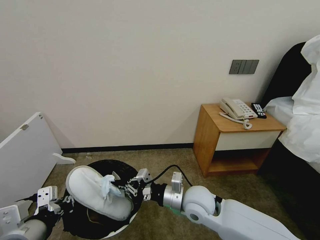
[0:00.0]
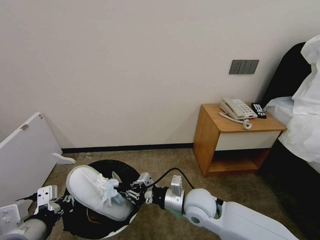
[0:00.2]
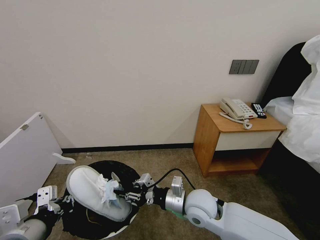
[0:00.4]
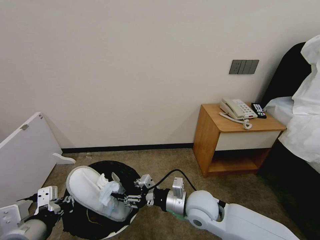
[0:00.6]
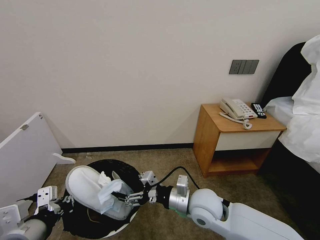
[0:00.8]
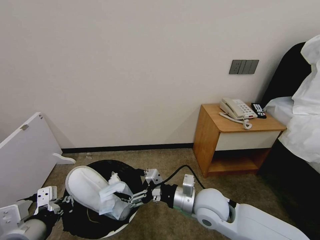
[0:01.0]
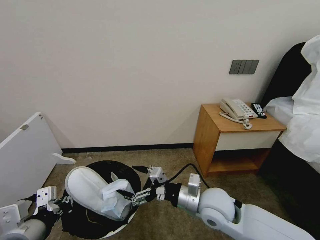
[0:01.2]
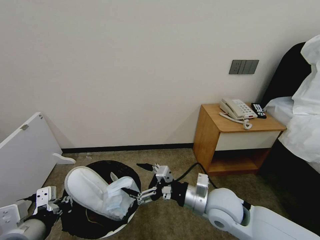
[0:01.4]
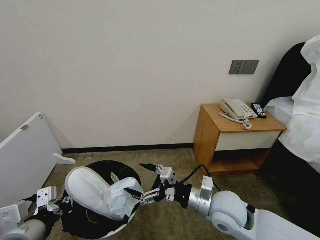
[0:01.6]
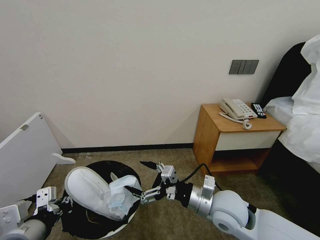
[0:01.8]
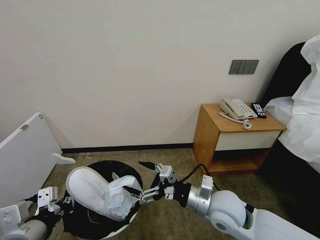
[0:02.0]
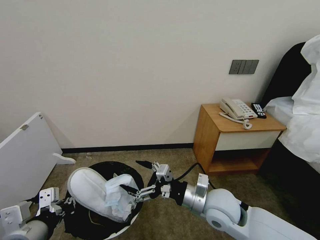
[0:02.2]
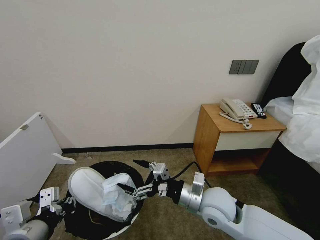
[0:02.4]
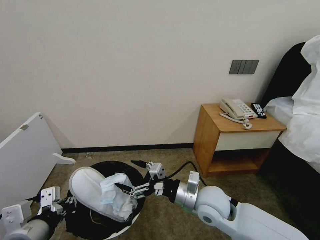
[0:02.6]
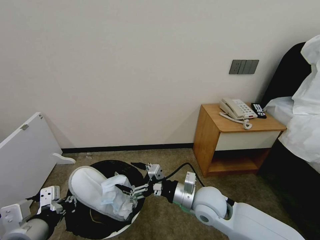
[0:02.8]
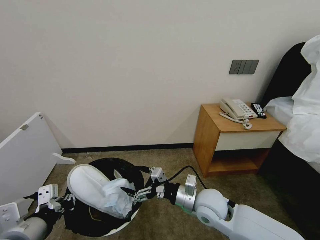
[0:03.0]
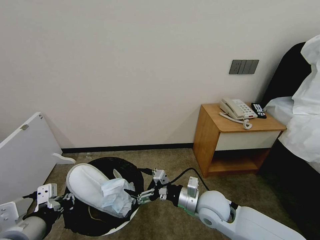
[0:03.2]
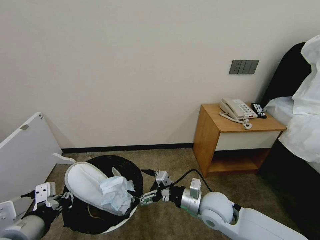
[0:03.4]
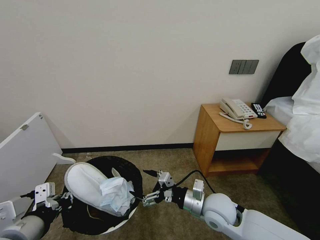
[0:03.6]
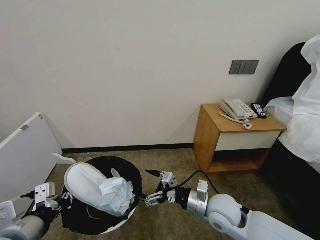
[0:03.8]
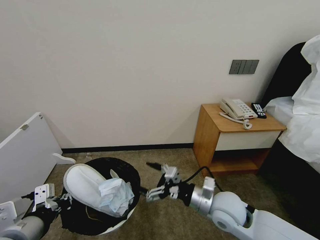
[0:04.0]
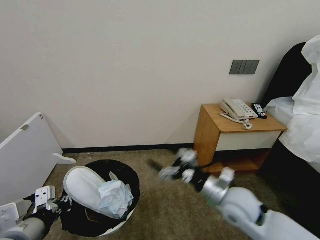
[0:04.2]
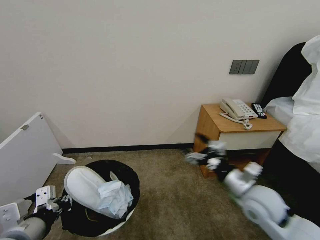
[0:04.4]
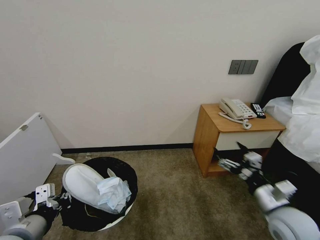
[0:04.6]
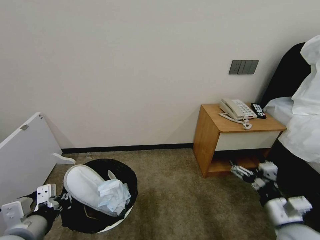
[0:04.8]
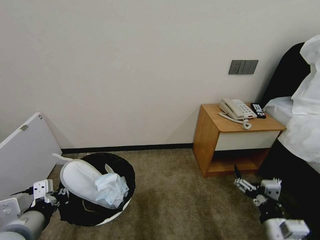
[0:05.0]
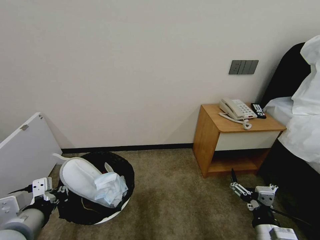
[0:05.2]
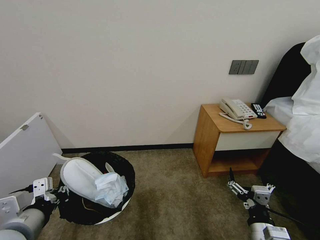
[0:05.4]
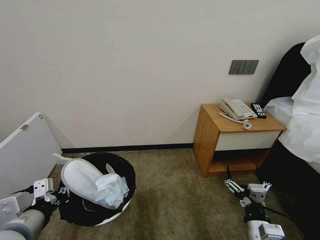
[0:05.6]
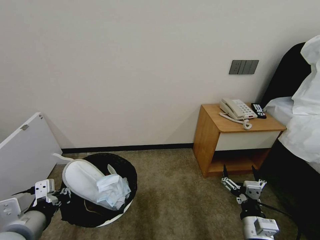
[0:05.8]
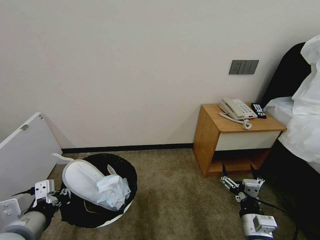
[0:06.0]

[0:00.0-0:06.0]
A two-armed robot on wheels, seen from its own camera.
Task of the whole recording: Pick up the trash bin, then pick up the garbage from the floor and place it into the trash bin.
0:00.0 to 0:01.6: The right gripper travels to the right by some 5 cm, and opens up.
0:01.6 to 0:03.0: The right gripper shifts by approximately 5 cm.
0:03.0 to 0:04.4: The right gripper moves to the right, about 15 cm.
0:04.4 to 0:06.0: The right gripper heads downward and backward, covering some 15 cm.
